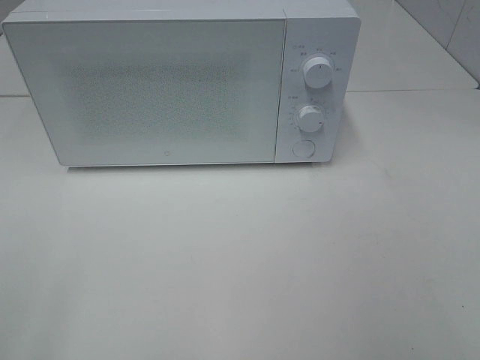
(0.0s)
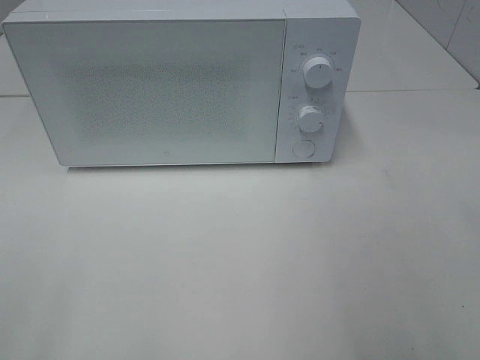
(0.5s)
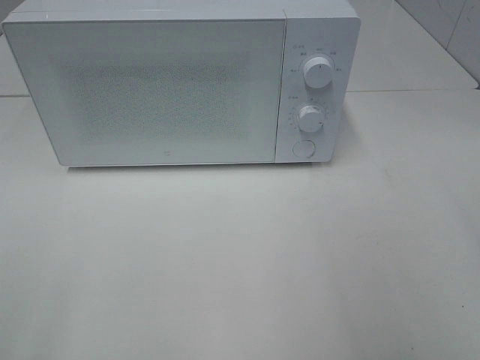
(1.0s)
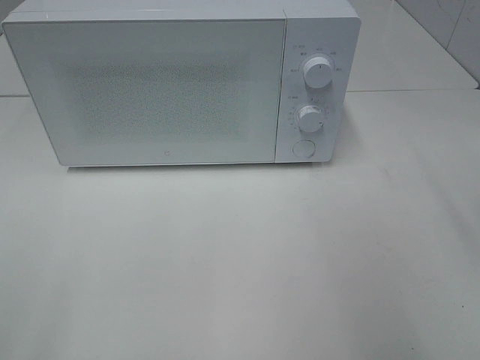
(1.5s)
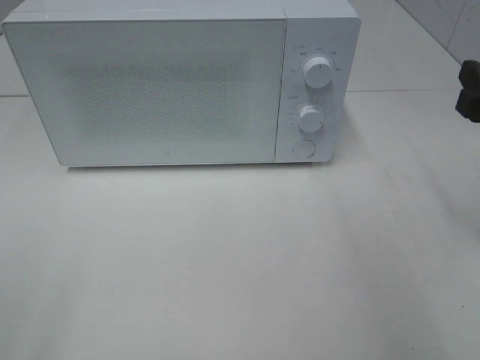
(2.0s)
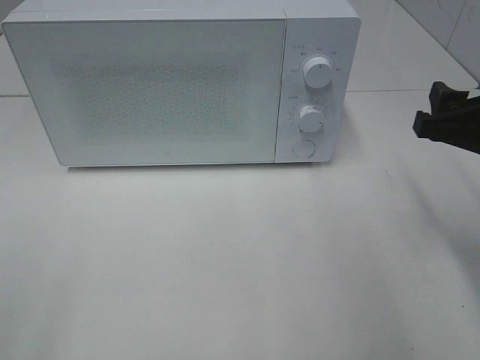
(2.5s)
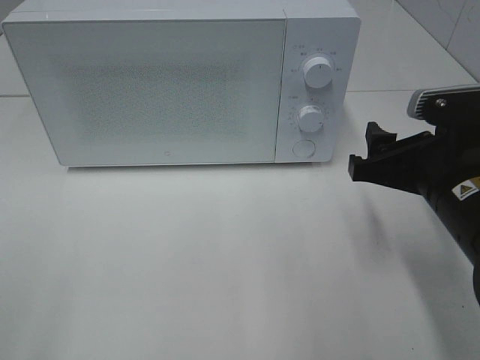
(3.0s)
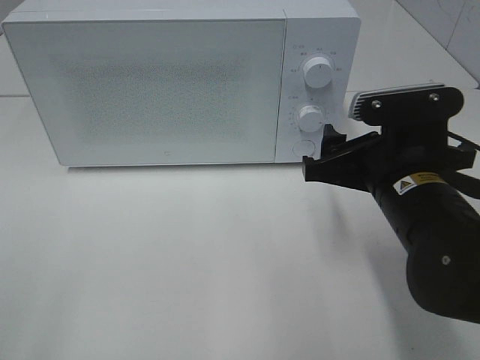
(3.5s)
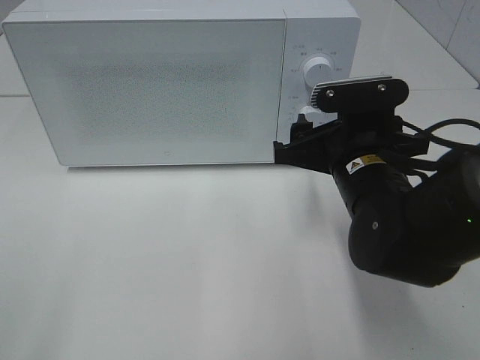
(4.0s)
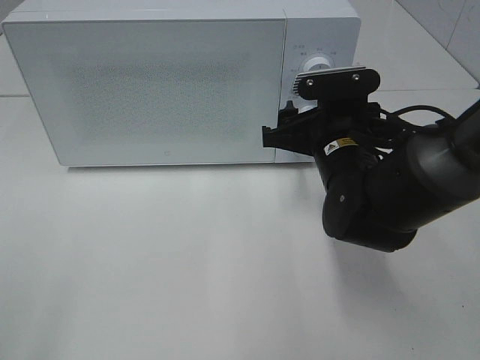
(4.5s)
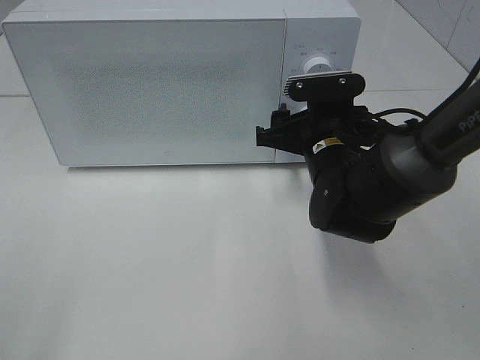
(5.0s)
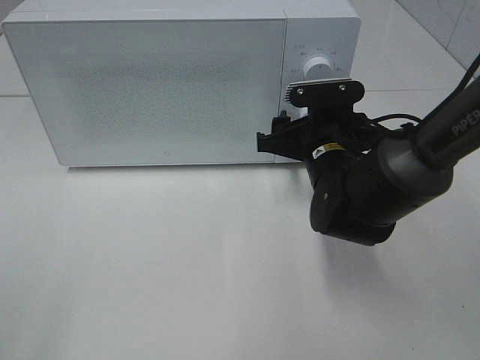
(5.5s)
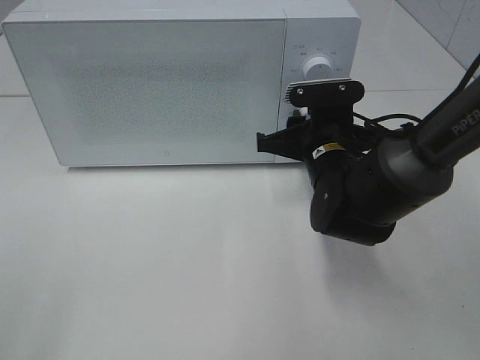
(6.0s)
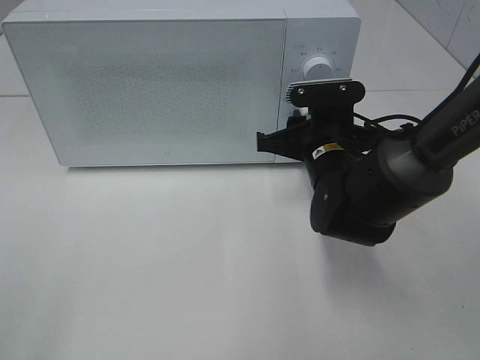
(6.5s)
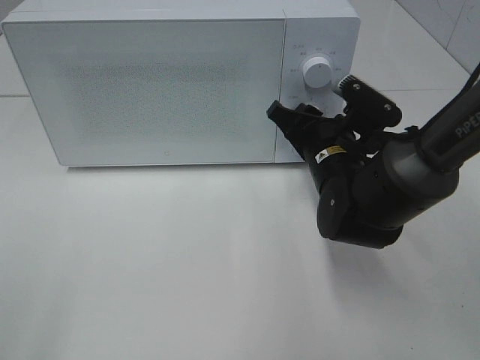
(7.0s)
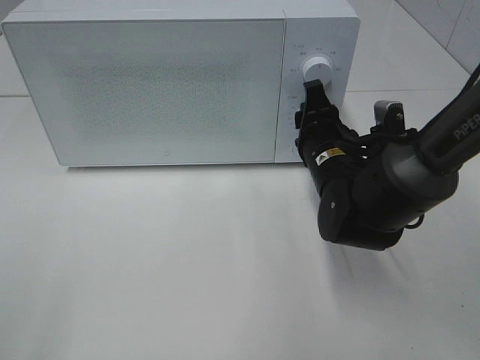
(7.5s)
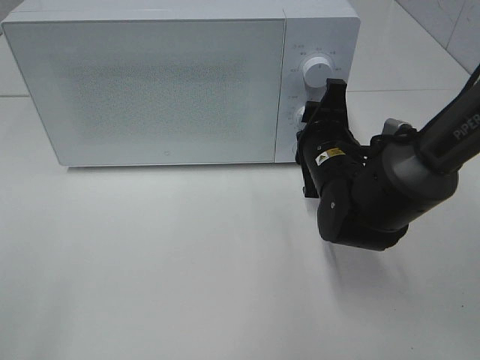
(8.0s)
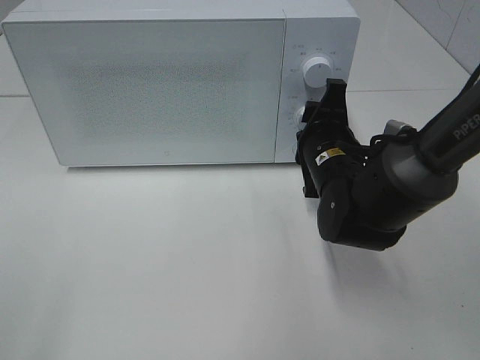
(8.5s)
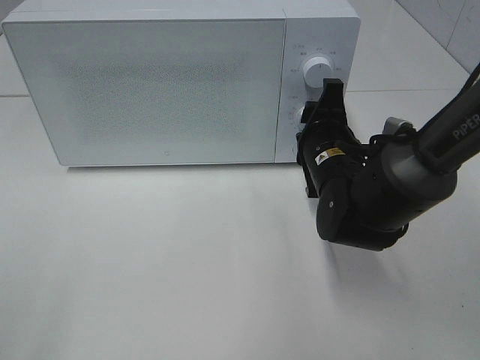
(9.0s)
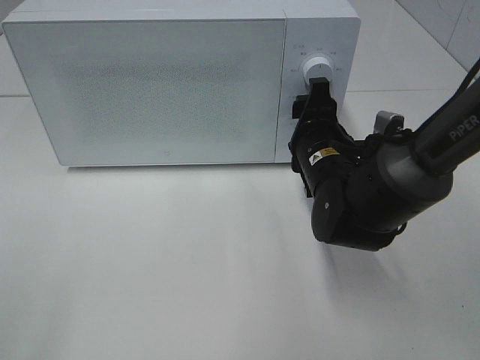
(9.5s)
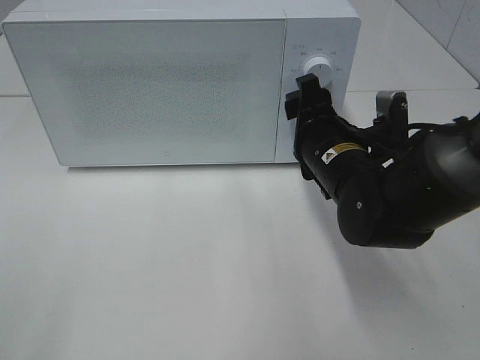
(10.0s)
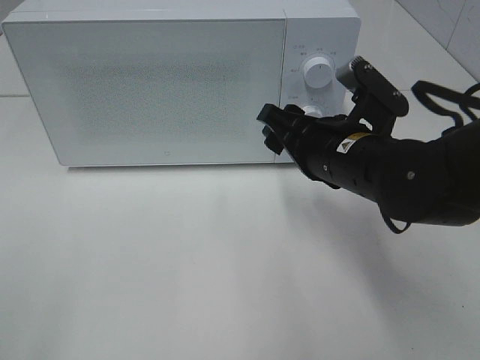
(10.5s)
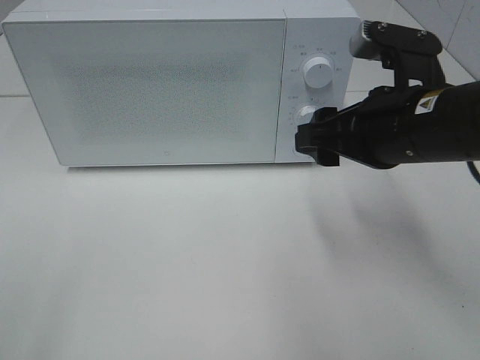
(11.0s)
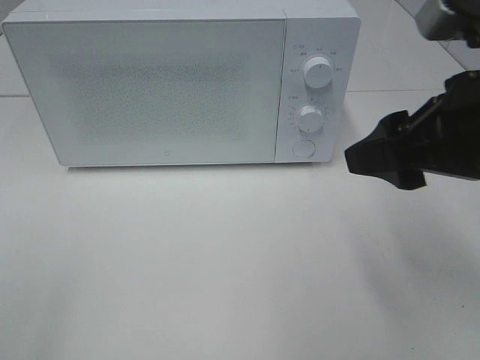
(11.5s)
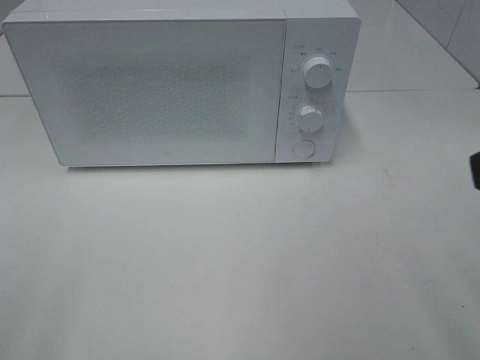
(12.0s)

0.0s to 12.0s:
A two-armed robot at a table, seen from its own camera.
Task of the whole recording: Heat the burger.
Step, 0.0s to 9.0s: Right hand: twist timer button.
0.0s to 2.0s: The right gripper goes about 20 cm forward.
2.0s to 4.0s: The right gripper moves to the left and downward, about 20 cm.
4.0s to 6.0s: The right gripper travels forward by about 5 cm, and closes its fingers.
10.0s to 12.0s: The right gripper shifts approximately 30 cm backward, upward and to the right.

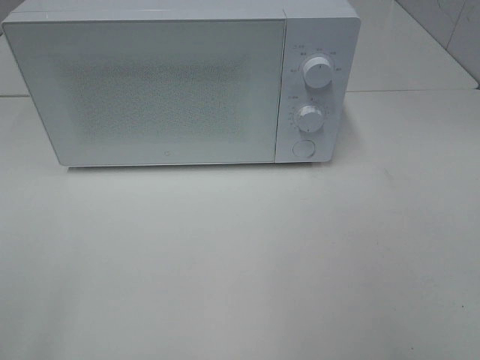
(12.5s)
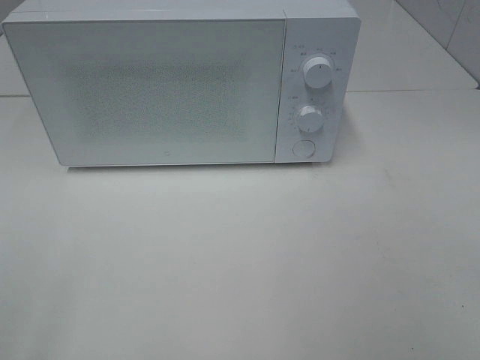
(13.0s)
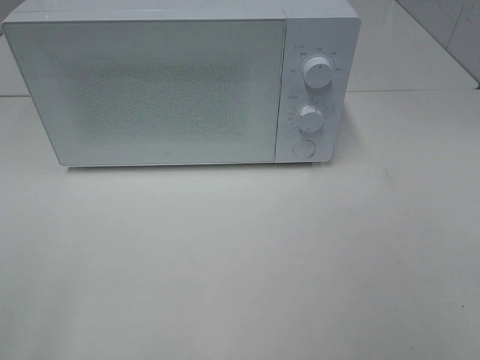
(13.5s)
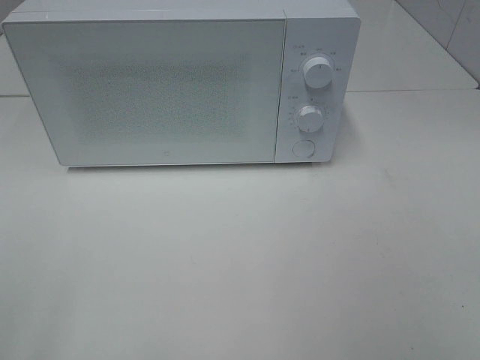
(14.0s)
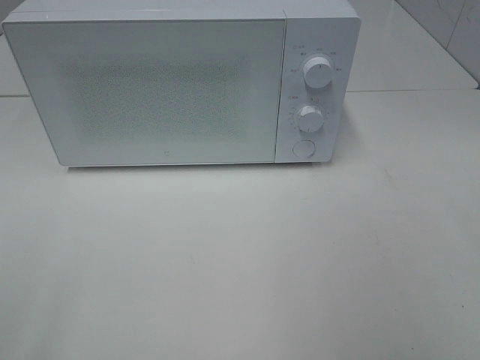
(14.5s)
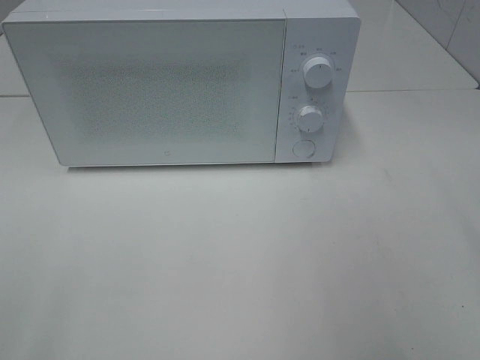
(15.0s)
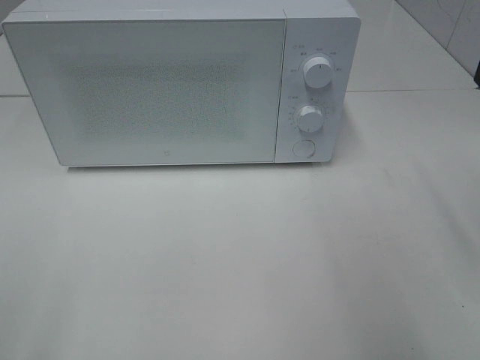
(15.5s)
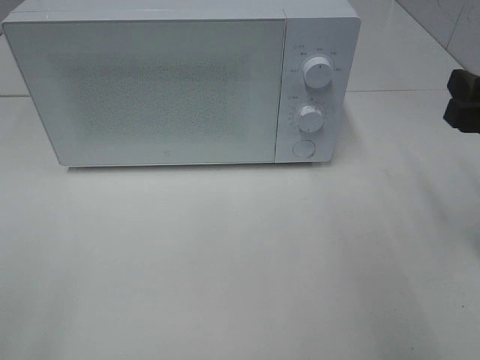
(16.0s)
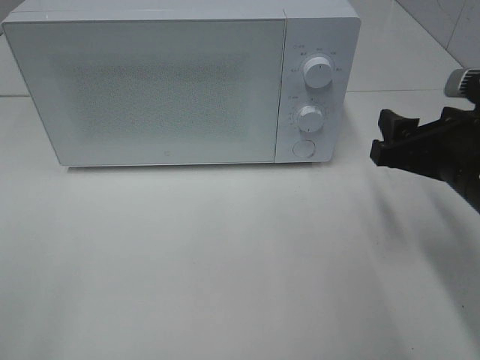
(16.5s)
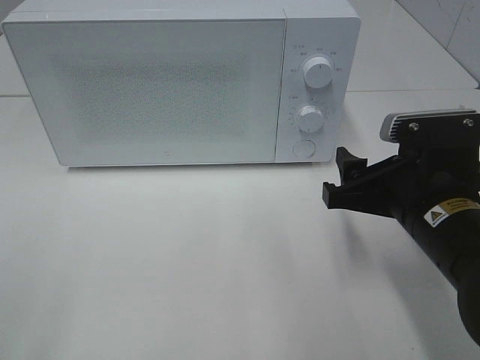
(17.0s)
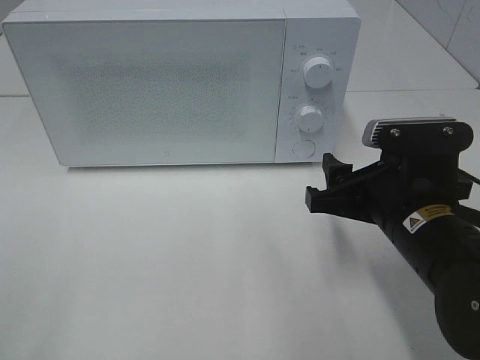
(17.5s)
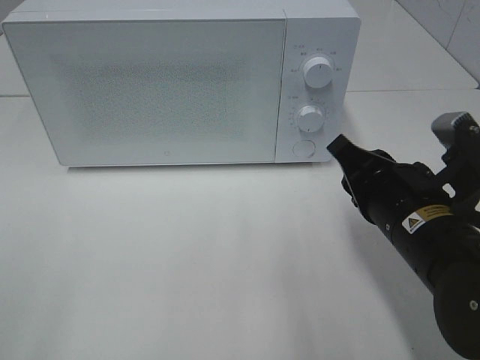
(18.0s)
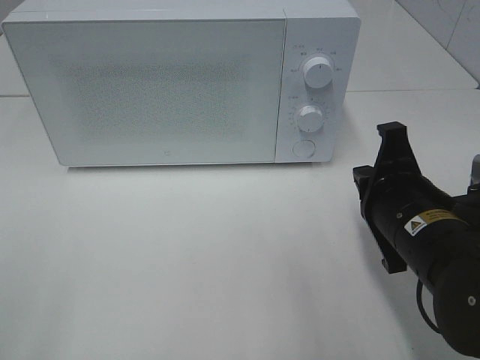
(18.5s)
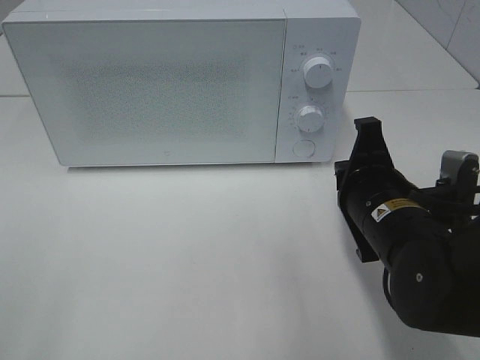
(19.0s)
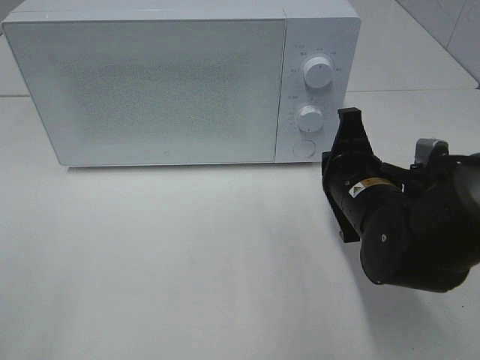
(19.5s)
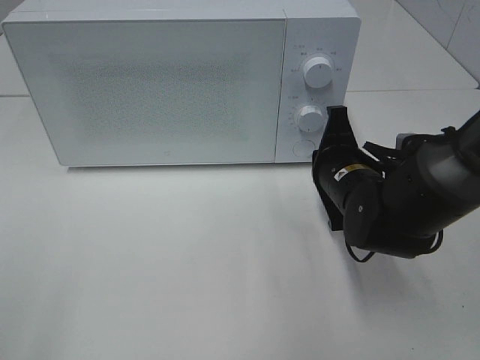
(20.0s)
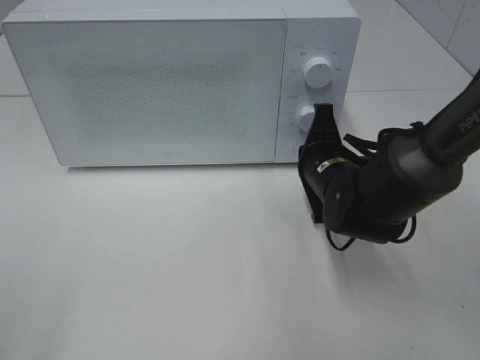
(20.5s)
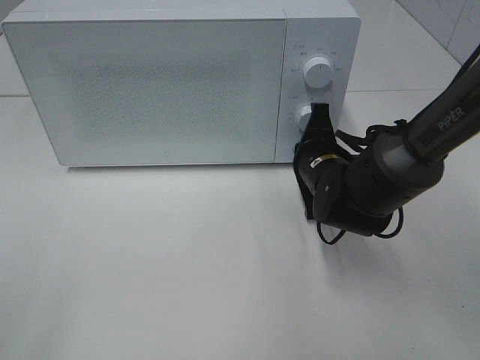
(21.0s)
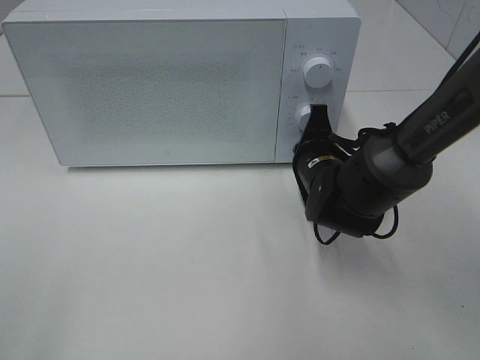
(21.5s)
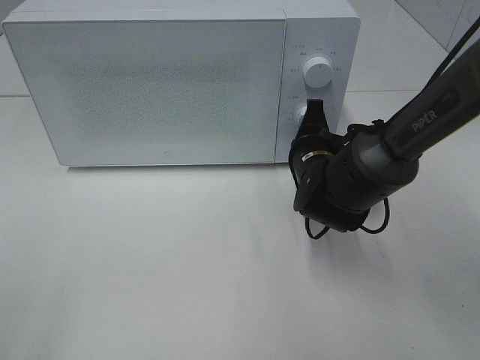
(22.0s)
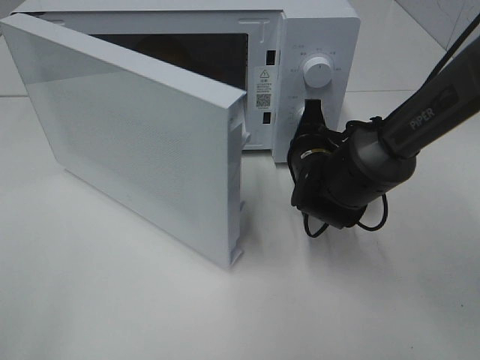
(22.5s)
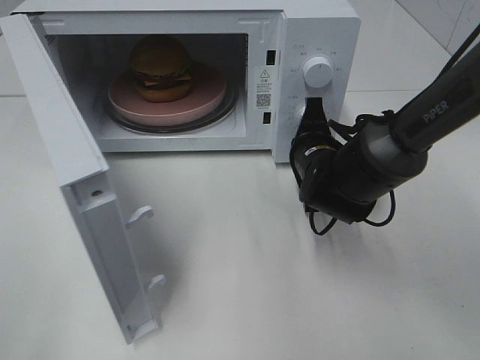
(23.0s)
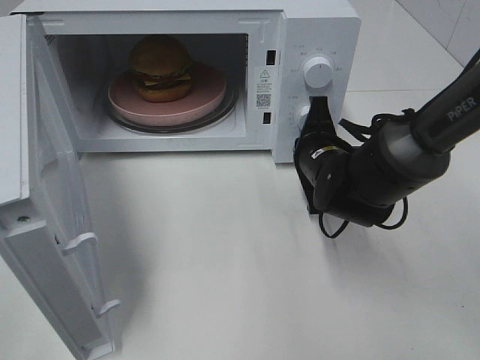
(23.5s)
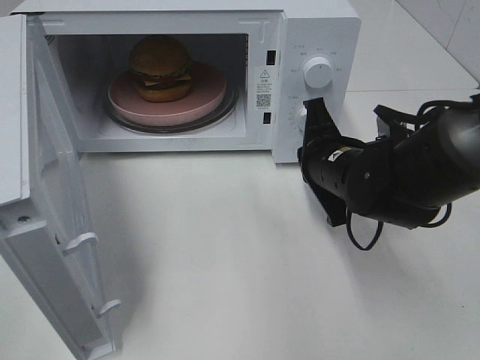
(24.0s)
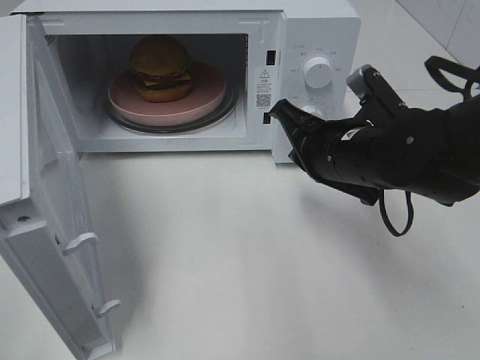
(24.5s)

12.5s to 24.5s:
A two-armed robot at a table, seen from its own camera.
Task of the whole recording: Heat the burger.
Step, 12.5s to 23.5s: Right hand: press the switch.
14.5s to 16.5s: The right gripper is displaced forward, downward and to the left by approximately 25 cm.
16.5s to 18.5s: The right gripper is displaced to the left by about 5 cm, and closes.
18.5s to 20.5s: The right gripper goes roughly 15 cm forward and downward.
22.5s to 24.5s: The right gripper heads upward and backward, covering some 10 cm.

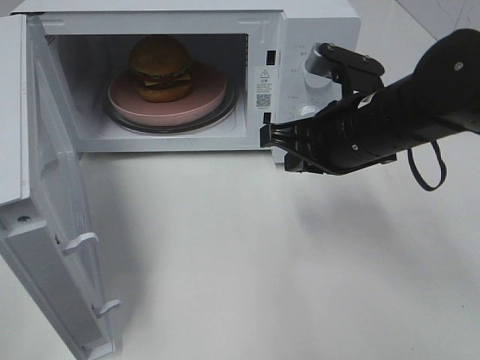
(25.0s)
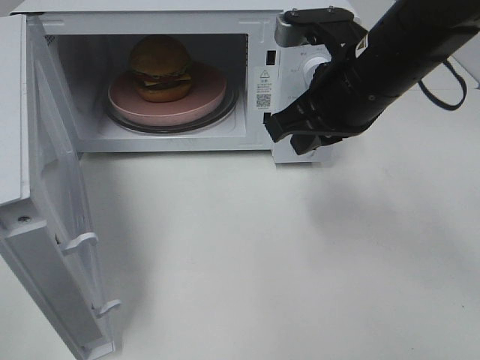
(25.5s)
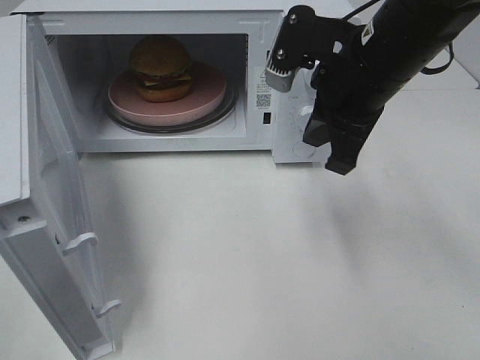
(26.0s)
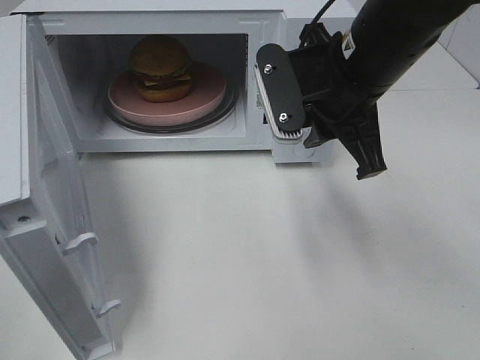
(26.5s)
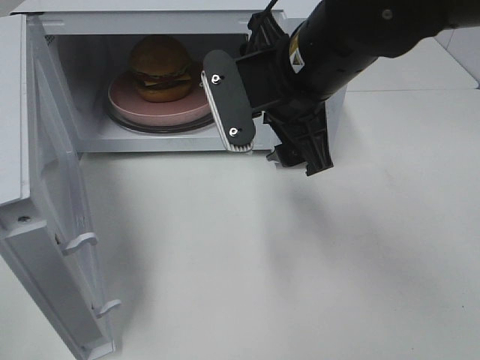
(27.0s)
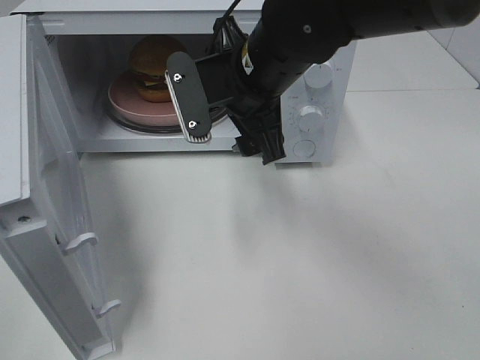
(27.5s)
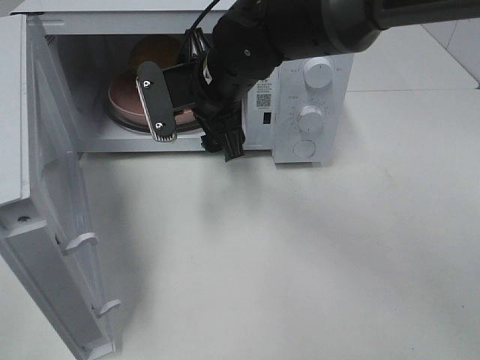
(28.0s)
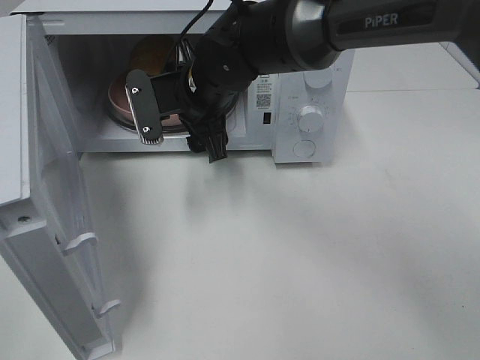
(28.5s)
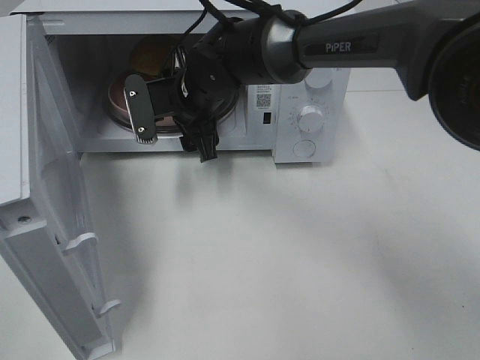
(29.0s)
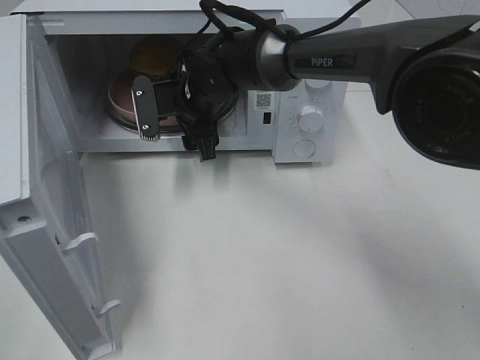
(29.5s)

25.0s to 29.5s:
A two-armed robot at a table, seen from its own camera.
Task of the whole recording: Heat the burger.
25.0s to 27.0s: The right gripper shifts roughly 10 cm to the left and upward, and opens.
27.0s to 29.5s: The right gripper shifts approximately 20 cm forward, downward and to the left.
